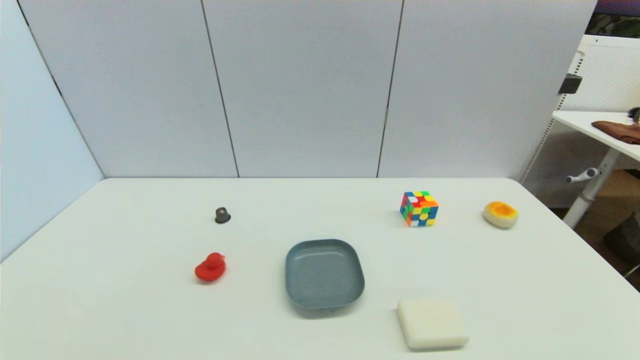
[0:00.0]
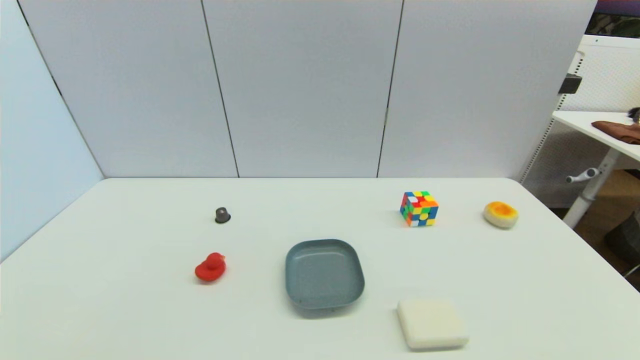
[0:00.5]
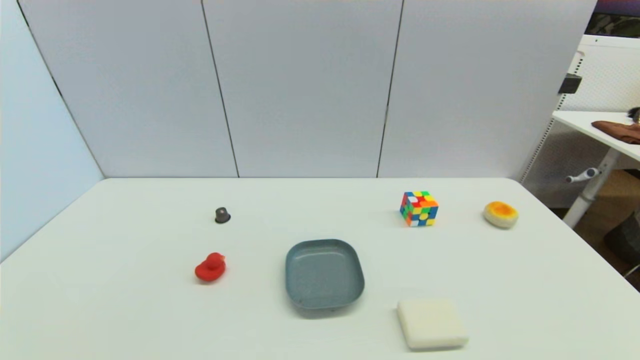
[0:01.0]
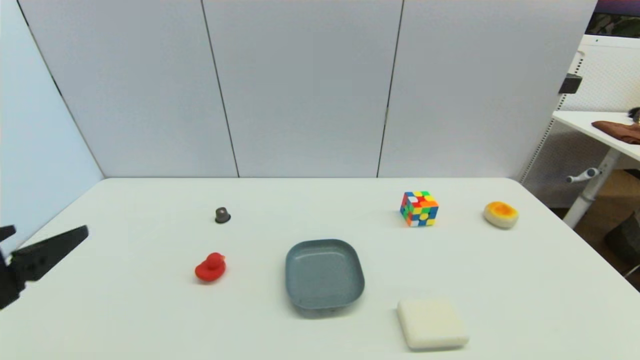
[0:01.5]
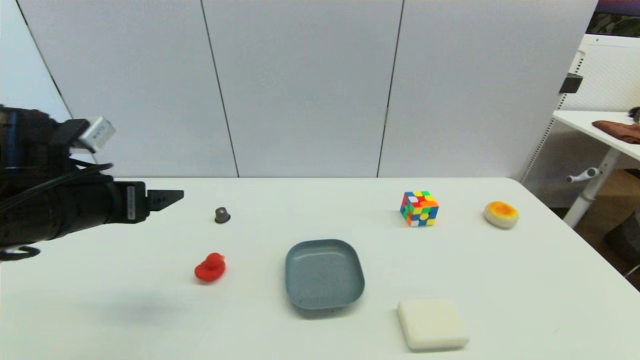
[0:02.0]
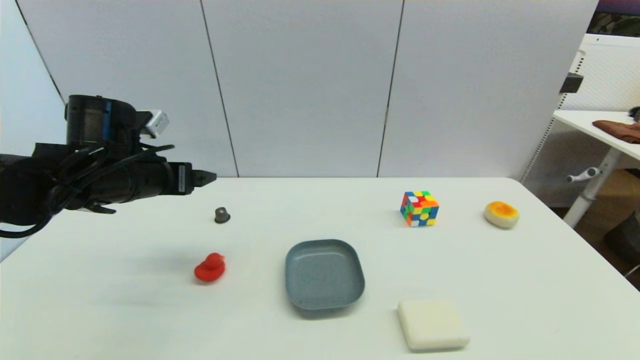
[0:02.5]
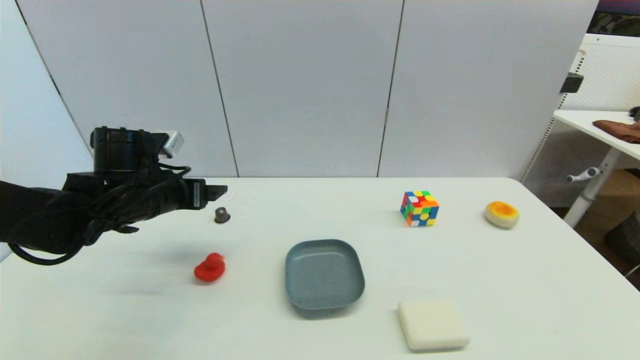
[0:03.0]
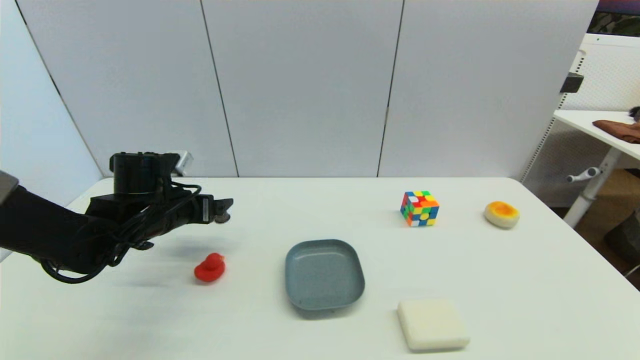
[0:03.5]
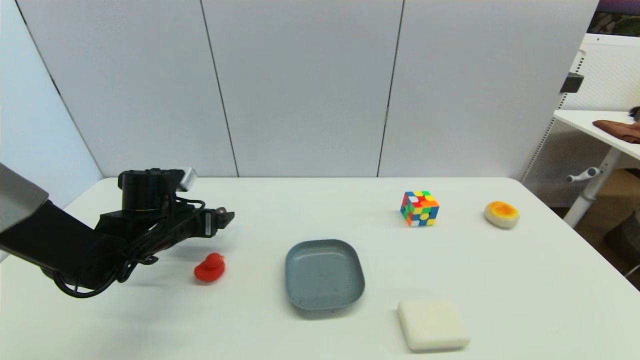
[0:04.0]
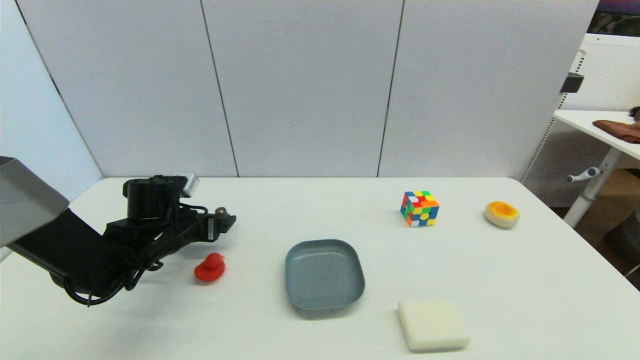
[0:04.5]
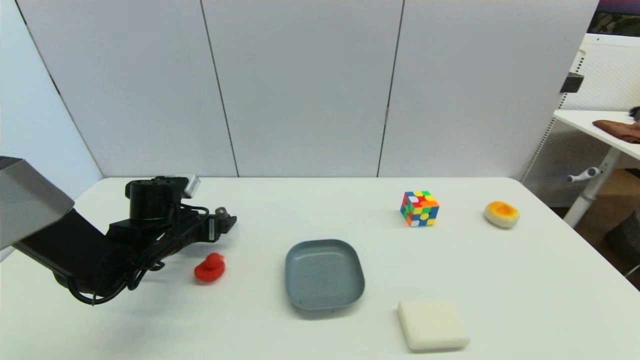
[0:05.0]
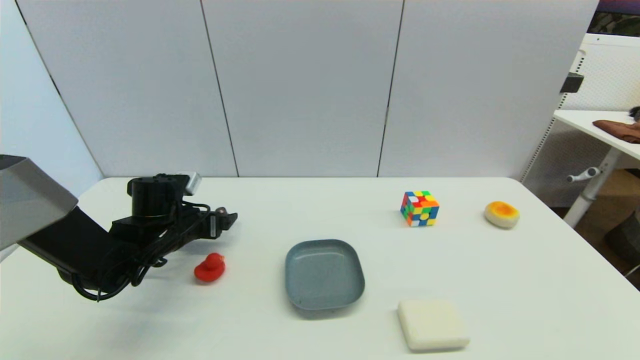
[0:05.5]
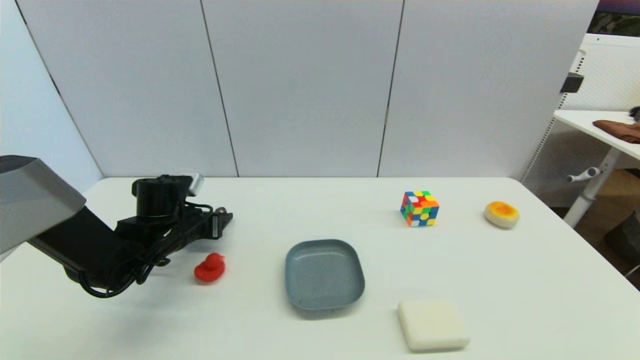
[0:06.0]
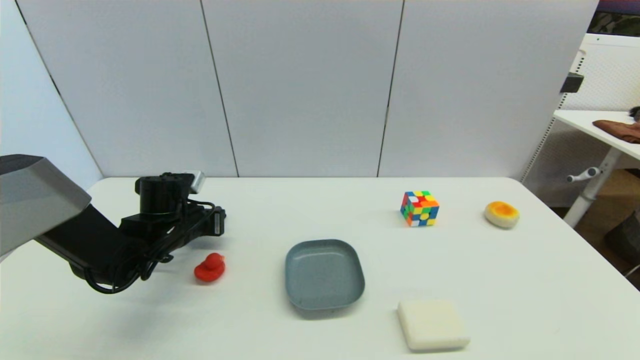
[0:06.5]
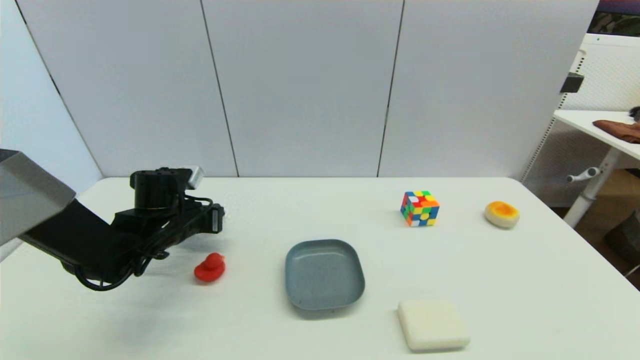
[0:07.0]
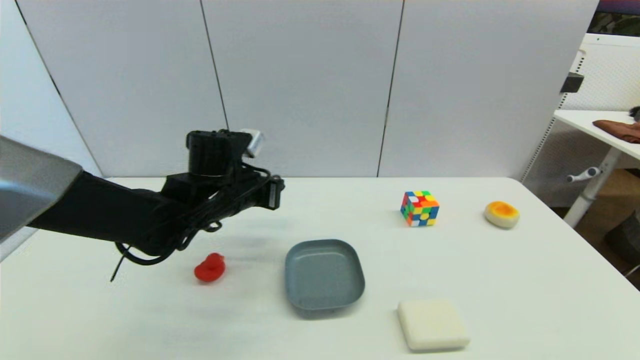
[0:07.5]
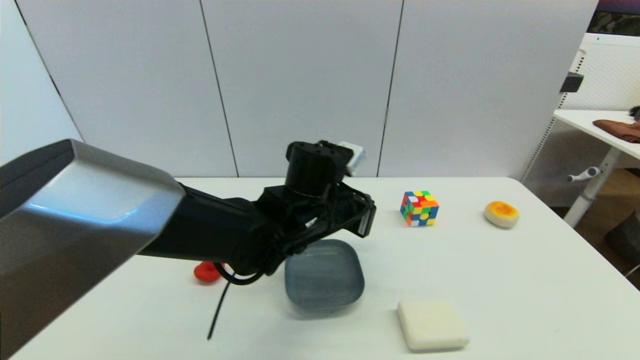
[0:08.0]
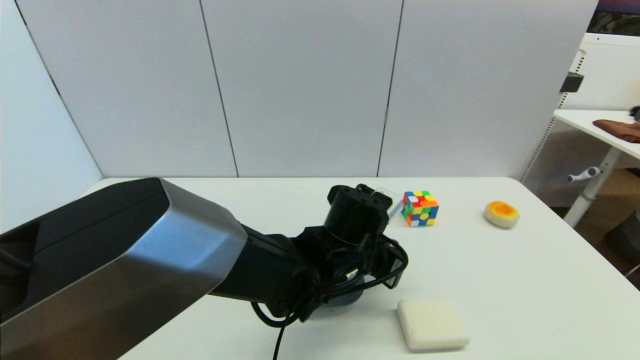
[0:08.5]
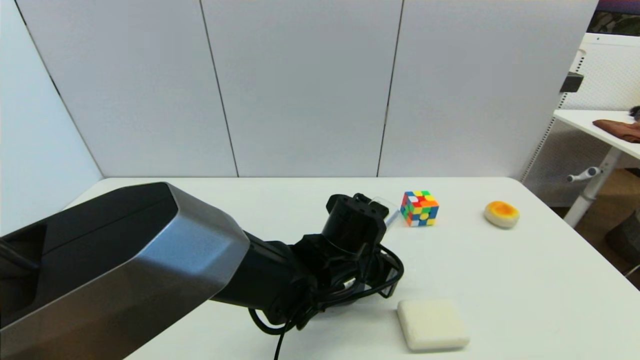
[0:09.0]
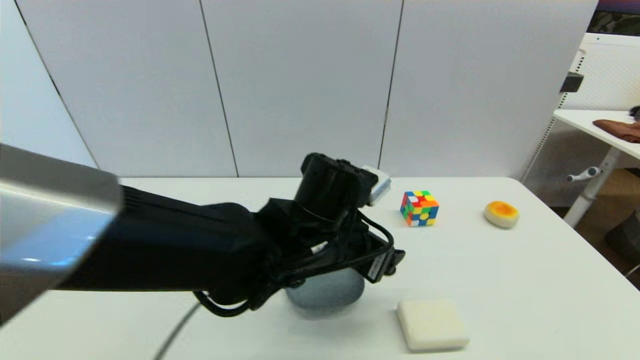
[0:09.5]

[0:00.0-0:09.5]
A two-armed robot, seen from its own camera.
Step, 0:01.5 to 0:06.5: Grasp the coffee capsule with left gripper.
Step, 0:07.0 to 0:09.0: Place the coffee capsule on the table with left gripper.
0:00.0 to 0:02.0: The left gripper goes approximately 30 cm forward and upward.
0:02.0 to 0:04.0: The left gripper is displaced downward and forward by about 15 cm.
0:04.0 to 0:05.5: The grippers stay close to where they were, moving slightly.
0:05.5 to 0:07.5: The left gripper shifts approximately 15 cm to the right and upward, and closes up.
0:07.5 to 0:09.5: The left gripper shifts about 15 cm to the right and backward, and opens up.

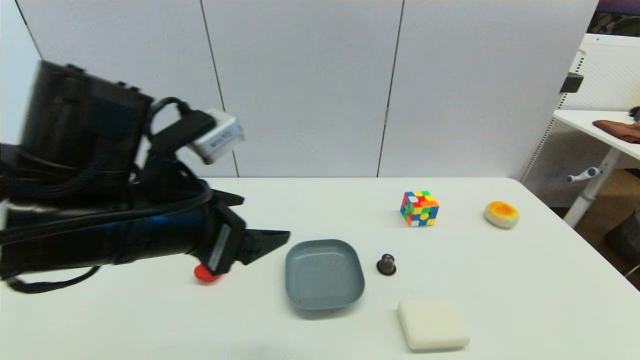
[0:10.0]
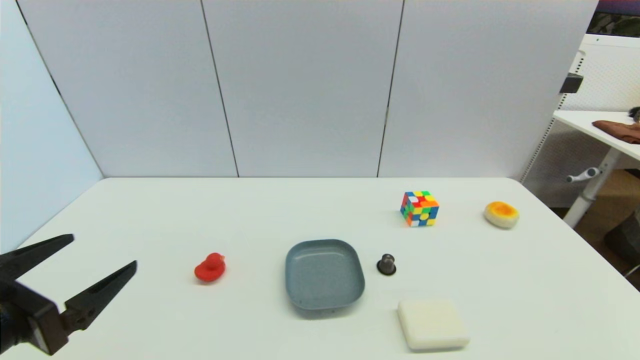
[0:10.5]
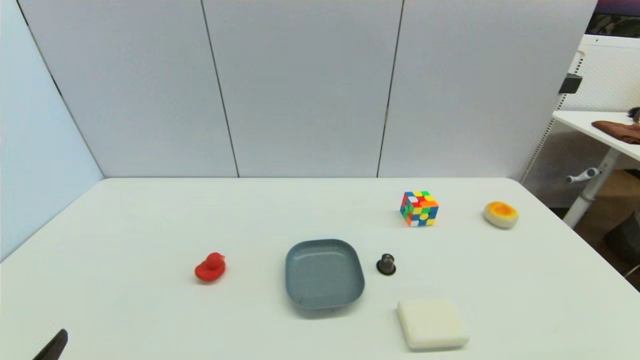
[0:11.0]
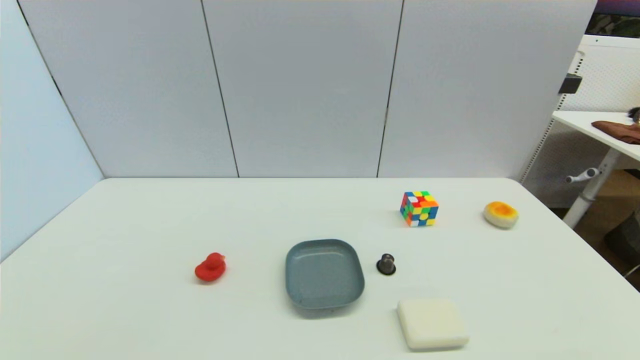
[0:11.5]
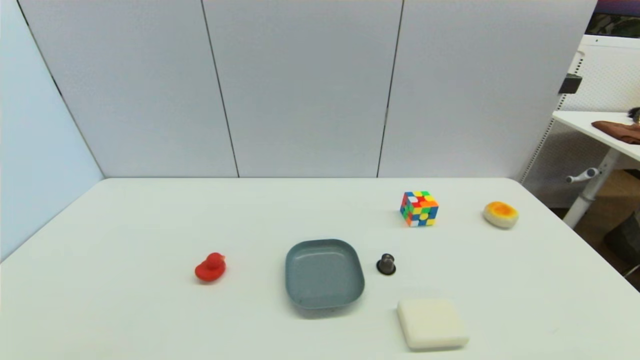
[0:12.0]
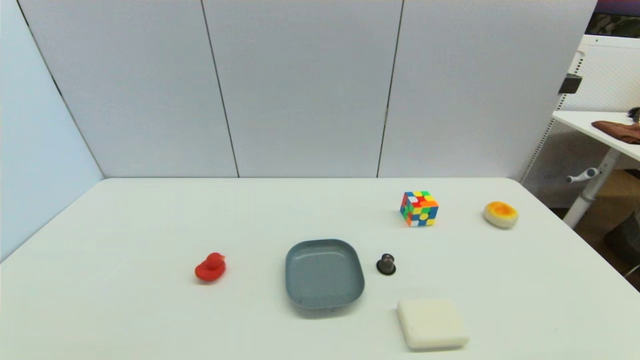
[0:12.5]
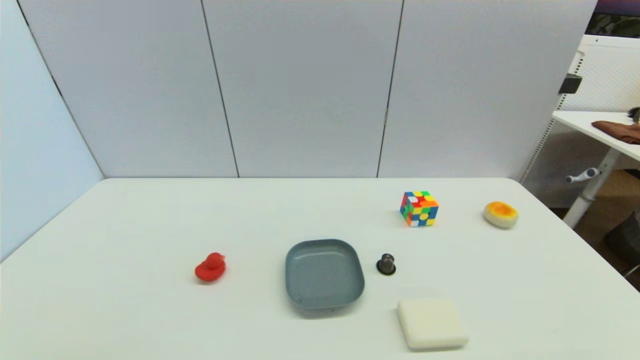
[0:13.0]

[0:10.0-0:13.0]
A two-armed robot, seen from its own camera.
0:10.0 to 0:11.5: The left gripper travels backward, downward and to the left by about 30 cm.
